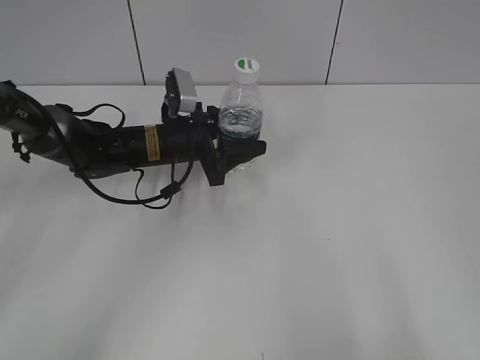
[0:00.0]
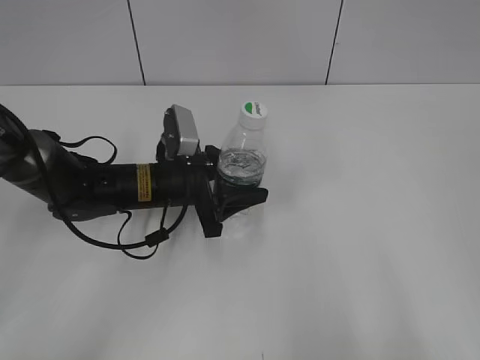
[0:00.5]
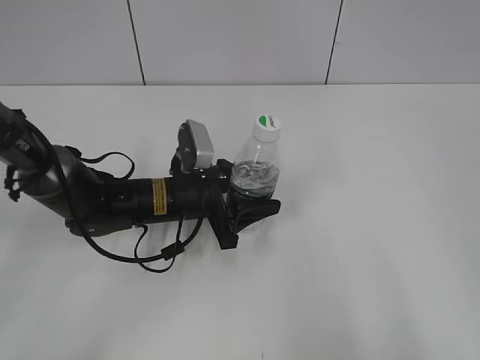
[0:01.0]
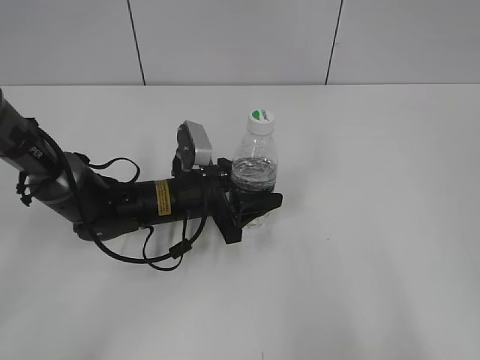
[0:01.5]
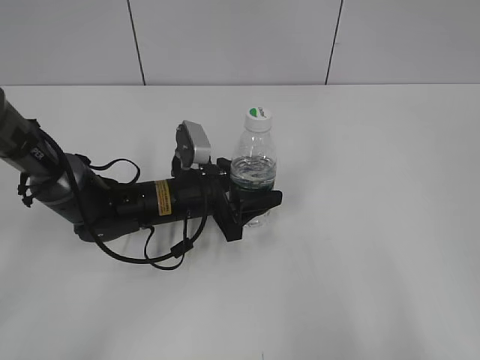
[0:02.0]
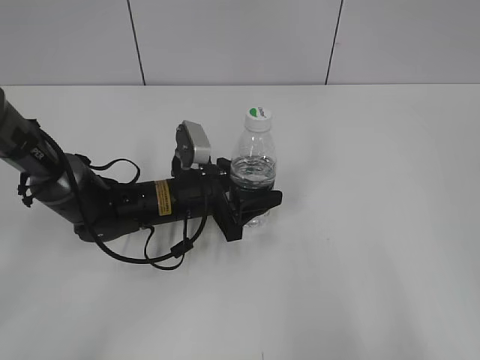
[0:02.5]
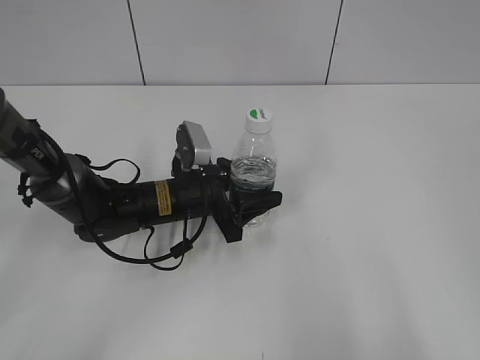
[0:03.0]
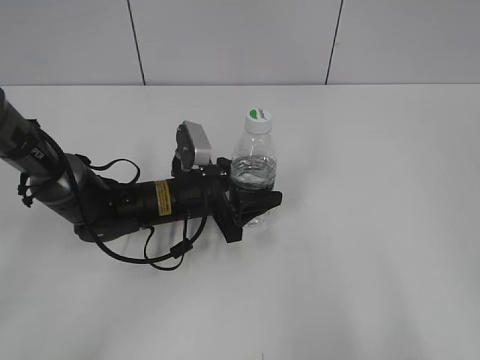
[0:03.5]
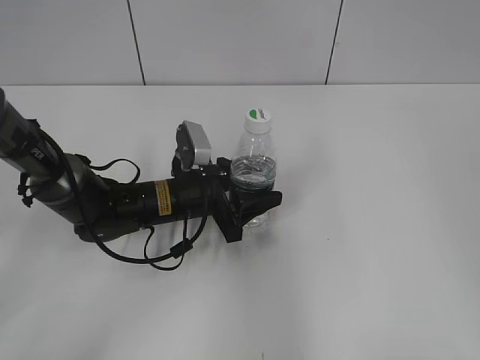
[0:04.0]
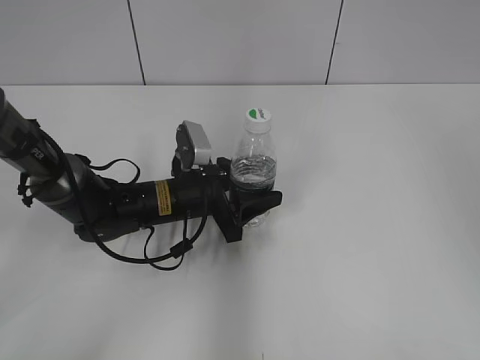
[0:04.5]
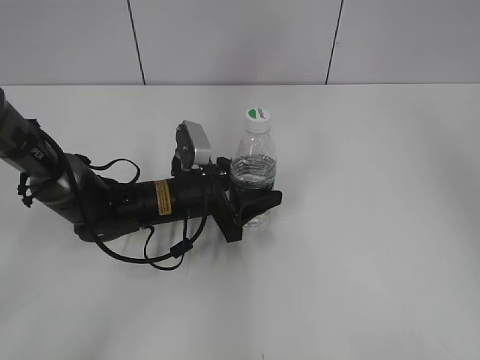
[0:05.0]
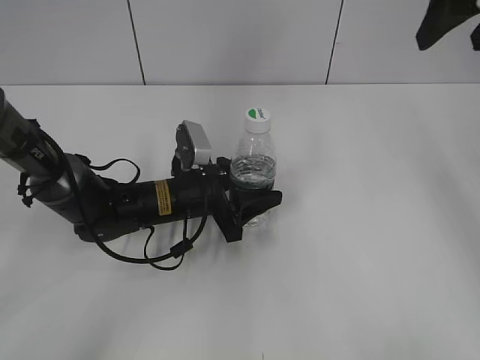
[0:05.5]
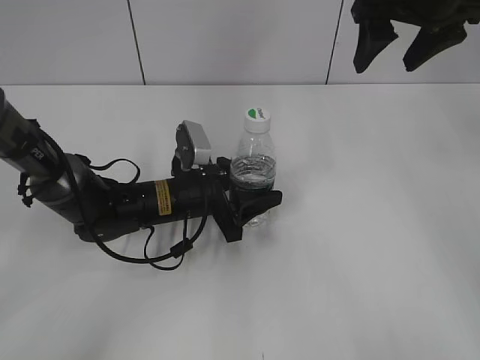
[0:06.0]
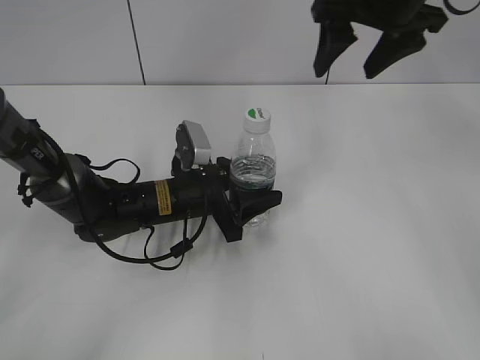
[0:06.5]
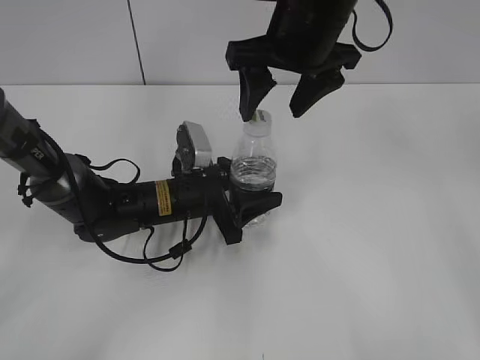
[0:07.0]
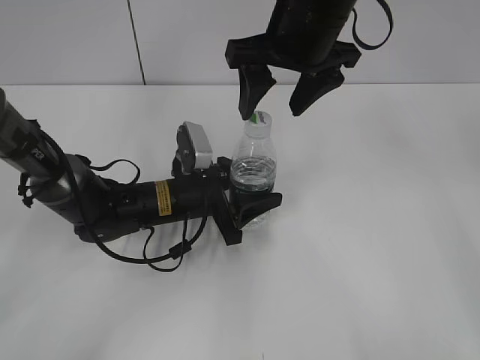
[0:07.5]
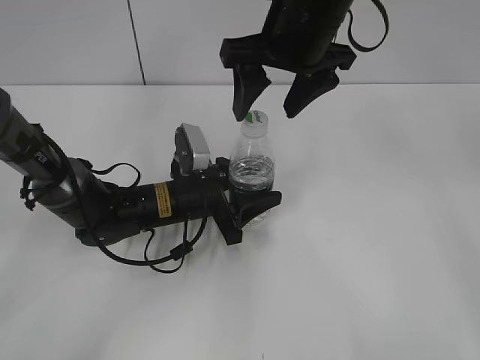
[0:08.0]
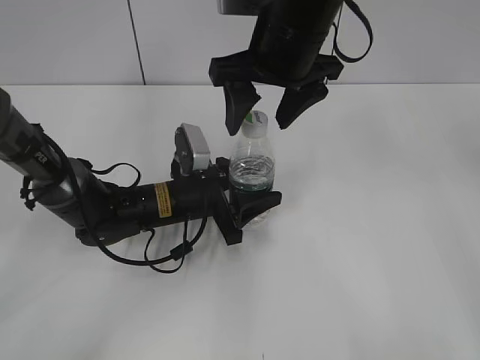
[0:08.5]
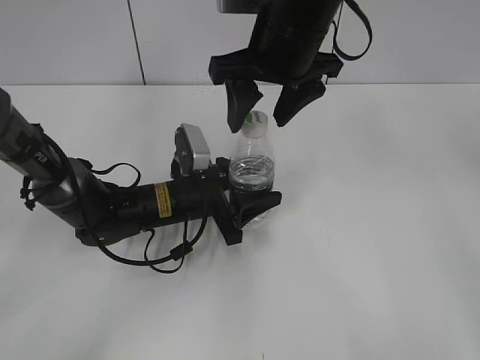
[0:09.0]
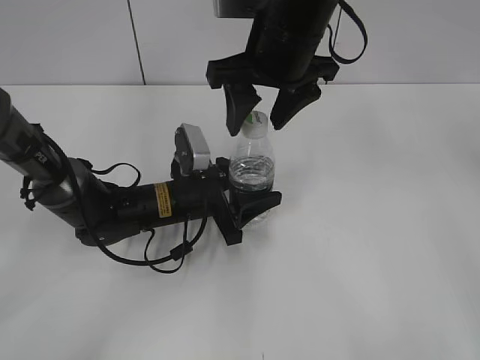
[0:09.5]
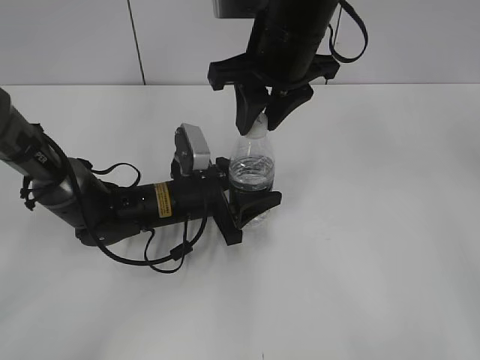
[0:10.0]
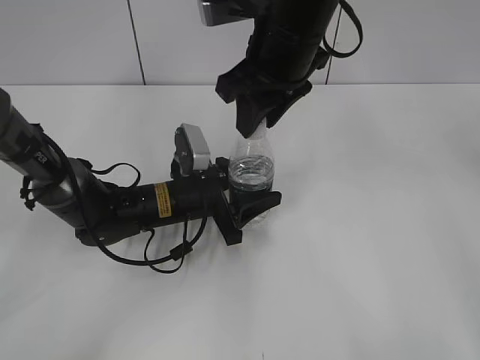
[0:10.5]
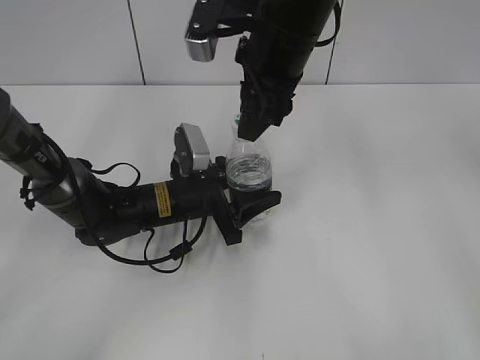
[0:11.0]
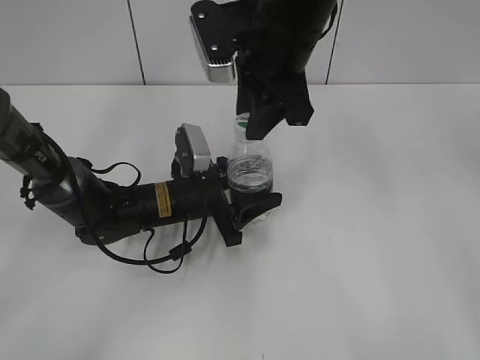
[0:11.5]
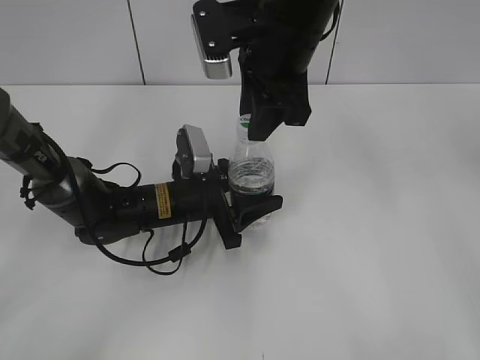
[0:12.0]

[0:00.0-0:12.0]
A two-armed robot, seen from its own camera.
Step, 0:00.0 to 0:04.0: Lift the bottle and move it to the center of the table with the left gripper.
0:00.0 to 0:02.0: The left gripper travels backward by roughly 5 cm.
0:02.0 to 0:04.0: The right gripper travels forward and upward by approximately 10 cm.
0:04.0 to 0:06.0: The right gripper shifts some 35 cm forward.
0:06.0 to 0:08.0: The right gripper goes about 15 cm to the left.
0:08.0 to 0:10.0: The right gripper closes up.

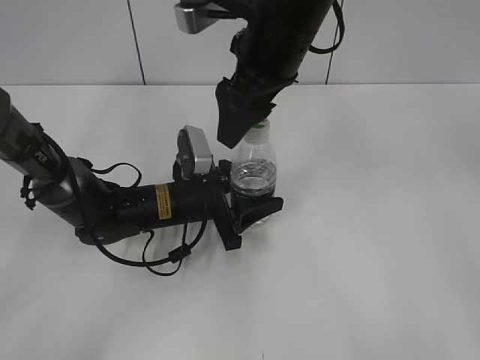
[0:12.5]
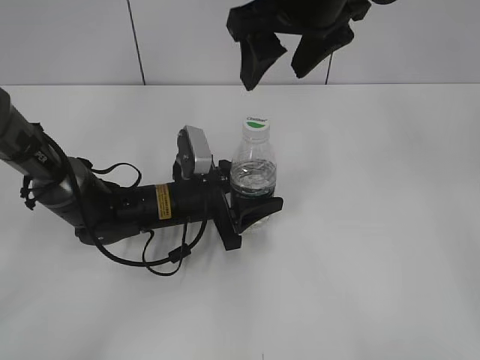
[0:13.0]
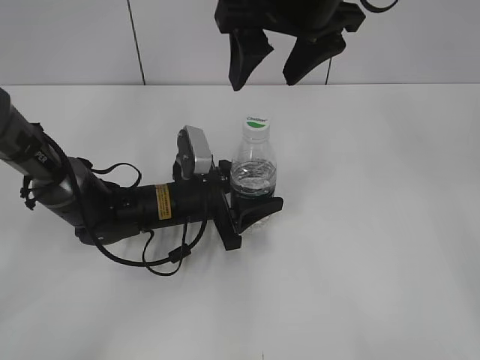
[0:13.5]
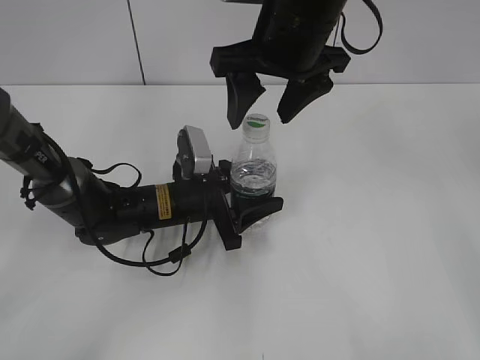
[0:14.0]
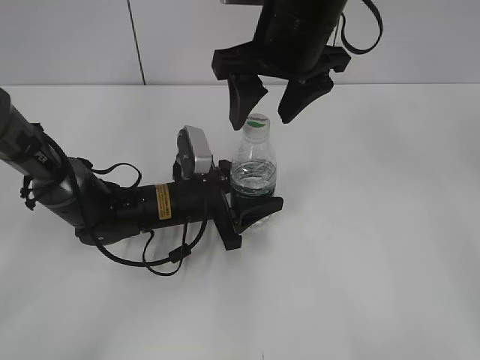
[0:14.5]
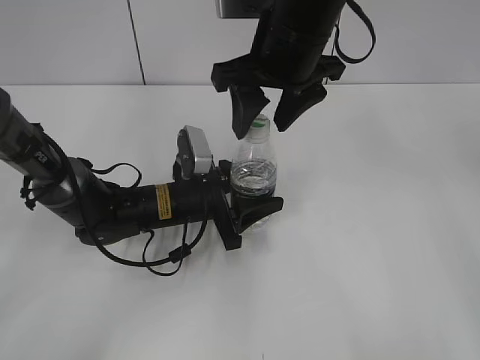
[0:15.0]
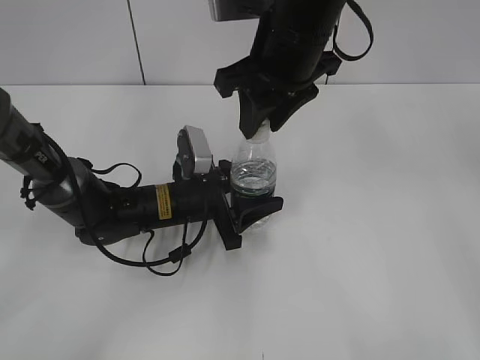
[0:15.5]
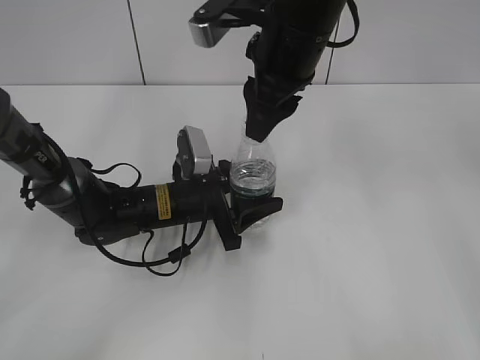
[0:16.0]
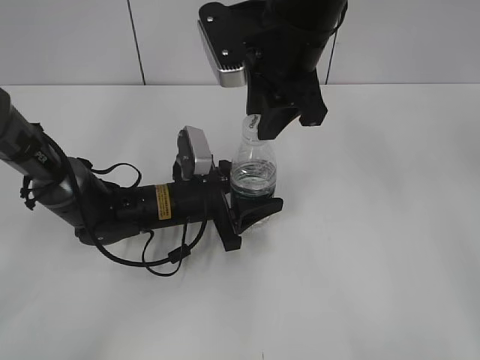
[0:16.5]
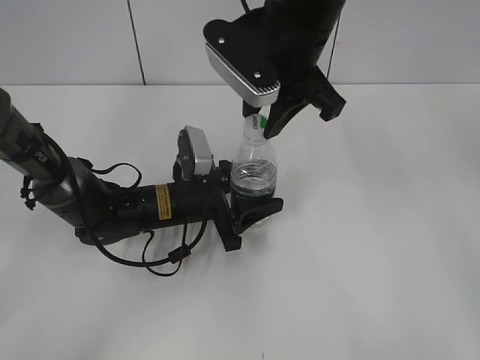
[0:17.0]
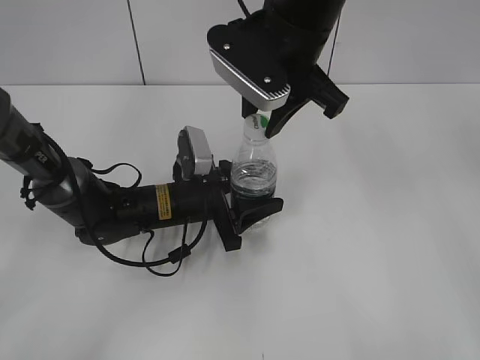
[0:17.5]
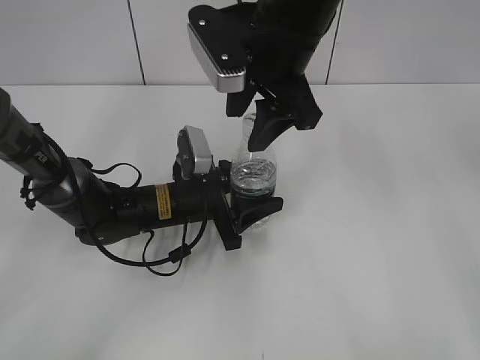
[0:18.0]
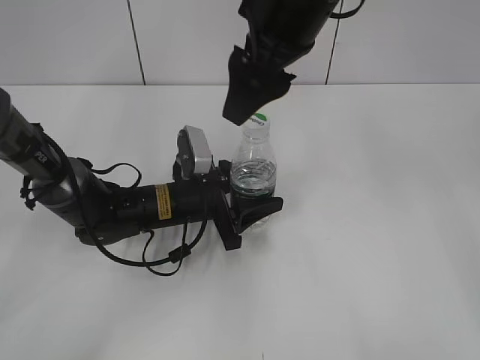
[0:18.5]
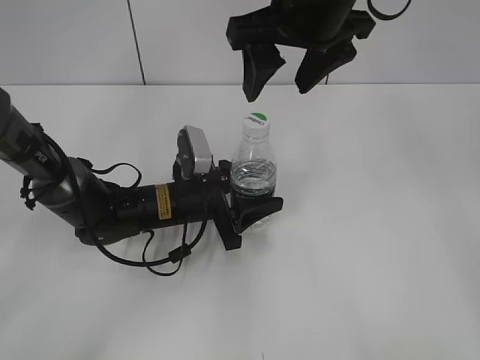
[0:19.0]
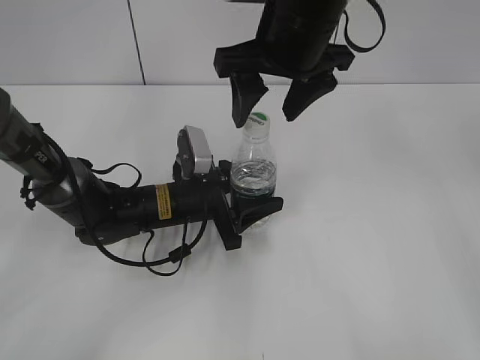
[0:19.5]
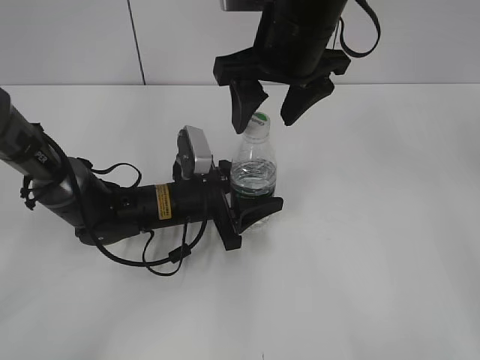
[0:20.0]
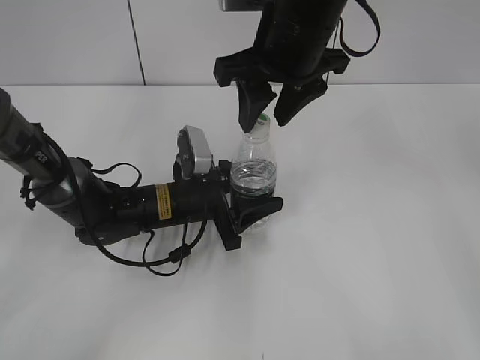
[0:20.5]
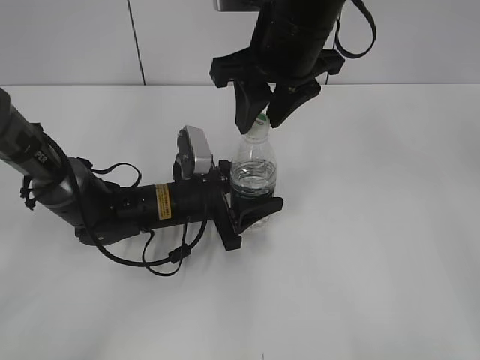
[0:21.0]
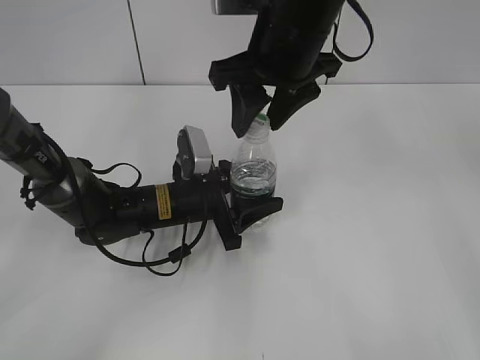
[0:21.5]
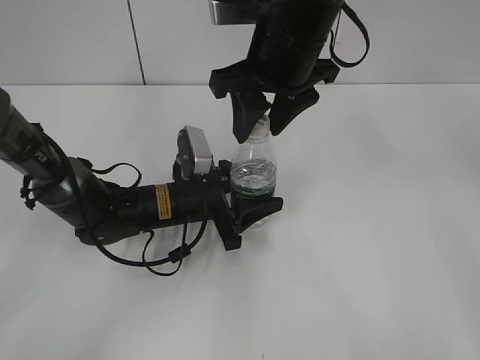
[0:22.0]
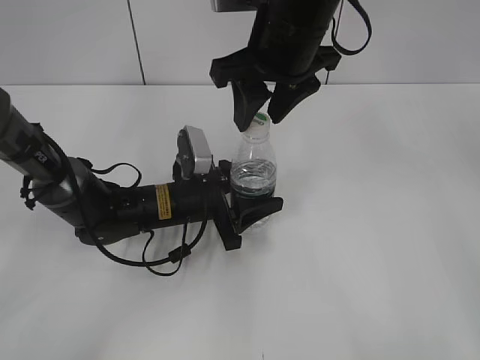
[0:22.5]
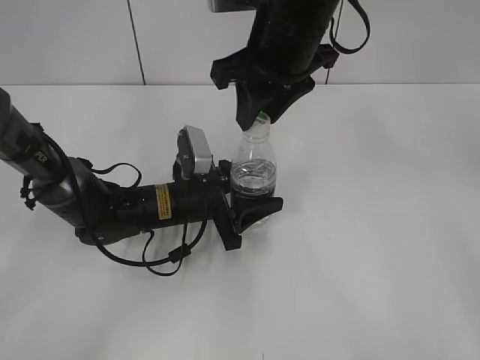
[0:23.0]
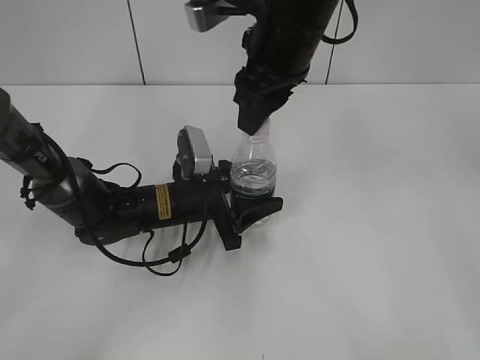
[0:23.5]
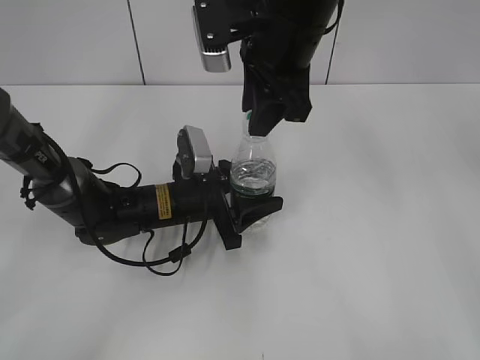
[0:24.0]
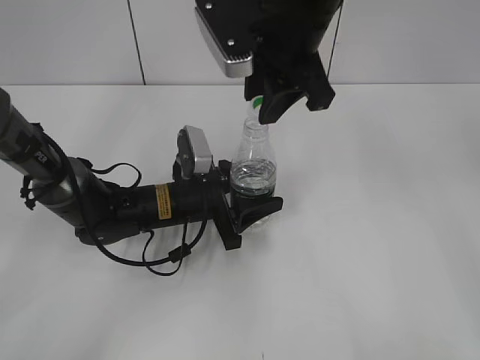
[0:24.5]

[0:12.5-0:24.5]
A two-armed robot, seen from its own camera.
Step, 0:12.5 to 0:24.5: Unscrew the bottle cap with the right gripper while holding the bottle with the left gripper.
0:14.5 to 0:16.5: The right gripper closes its fingers.
0:16.5 to 0:18.5: The right gripper opens up.
0:18.5 to 0:20.5: The right gripper closes up.
0:20.5 to 0:22.5: Both grippers stay put.
0:22.5 to 0:24.5: The right gripper closes its fingers.

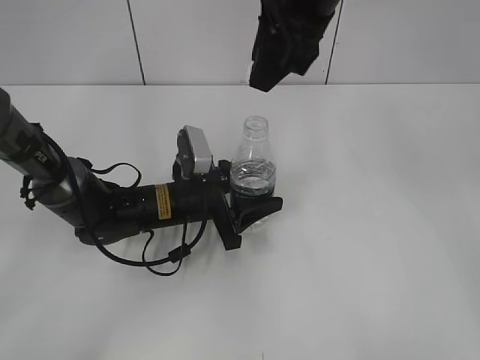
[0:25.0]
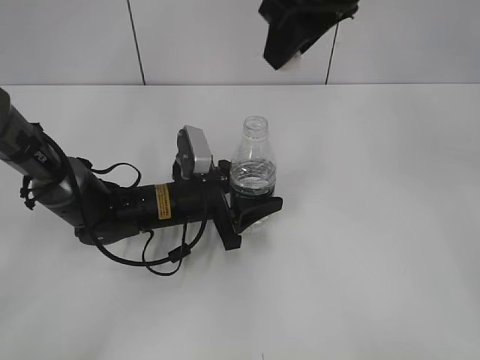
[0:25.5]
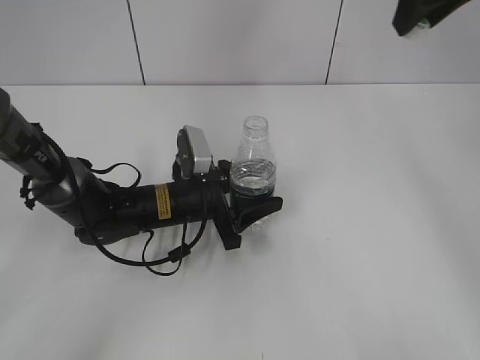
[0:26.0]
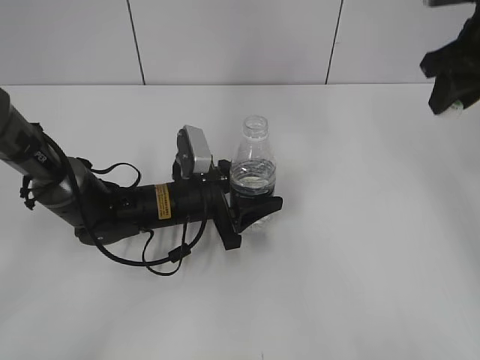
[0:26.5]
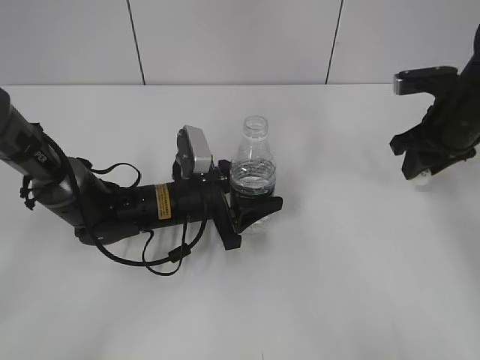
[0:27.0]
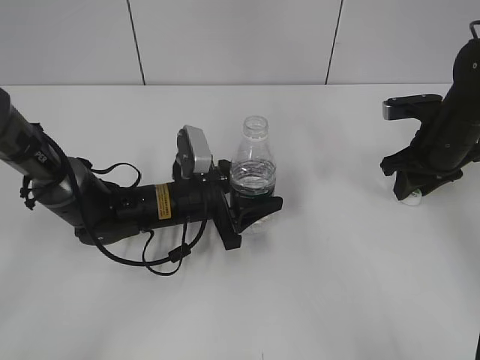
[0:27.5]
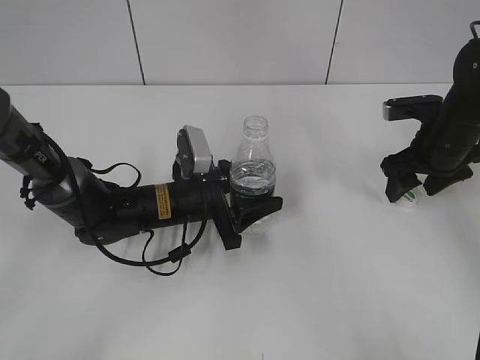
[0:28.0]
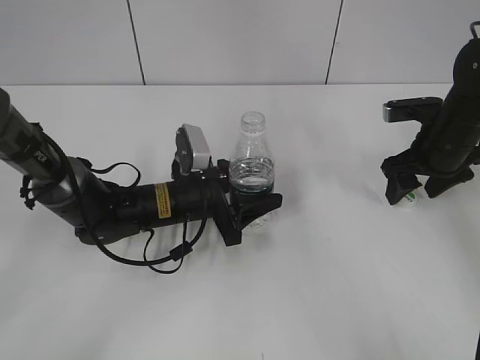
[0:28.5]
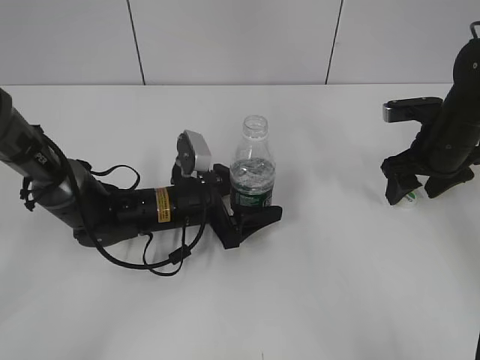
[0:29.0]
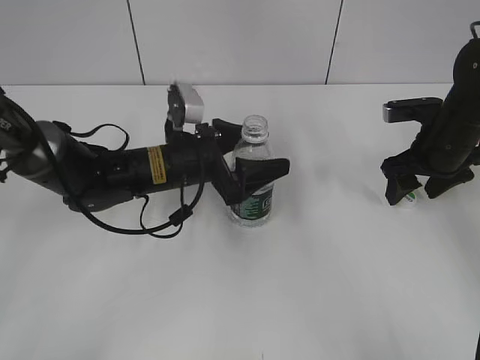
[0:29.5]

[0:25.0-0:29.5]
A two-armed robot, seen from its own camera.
Step, 0:25.0 to 0:28.5: Place the bottle cap on the table with the right gripper.
Step, 0:29.0 to 0:29.5: Place the bottle on the table with the left gripper.
0:25.0 to 0:27.0: The right gripper heads to the right and downward, covering some 25 cm.
0:27.0 to 0:29.5: The left gripper shifts some 5 cm upward, and opens up; the right gripper opens its fingers.
